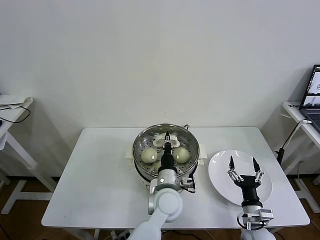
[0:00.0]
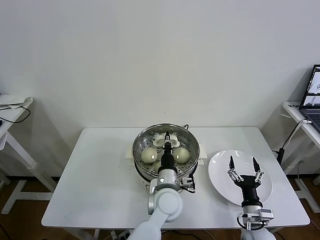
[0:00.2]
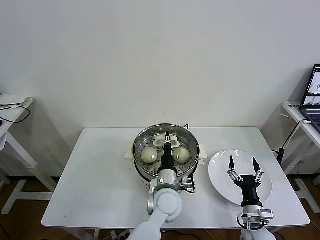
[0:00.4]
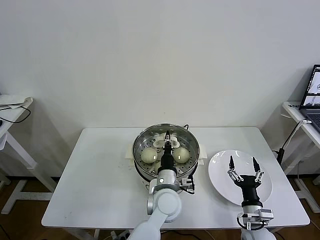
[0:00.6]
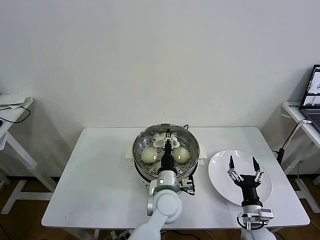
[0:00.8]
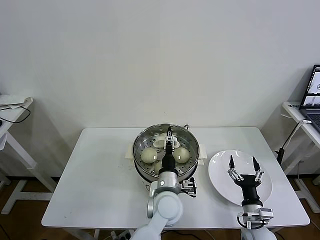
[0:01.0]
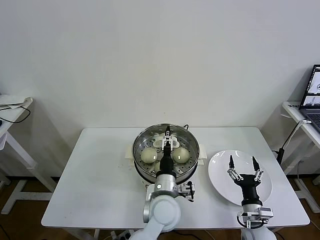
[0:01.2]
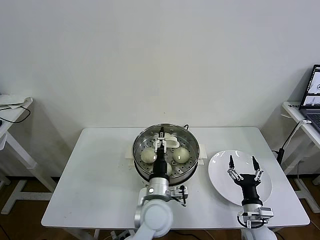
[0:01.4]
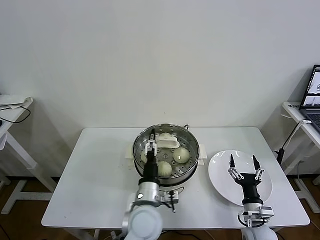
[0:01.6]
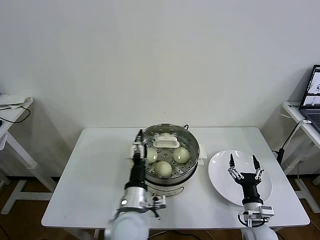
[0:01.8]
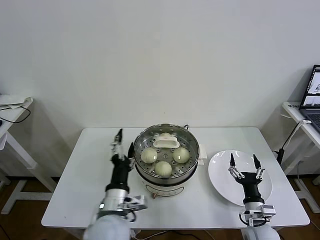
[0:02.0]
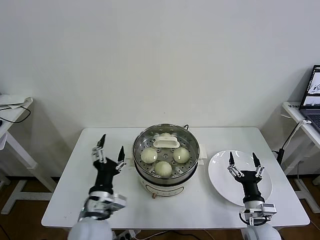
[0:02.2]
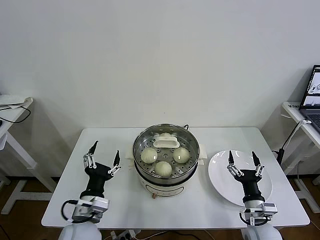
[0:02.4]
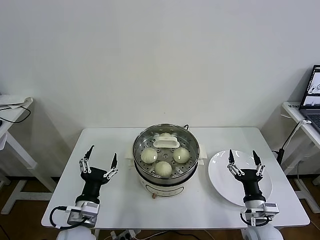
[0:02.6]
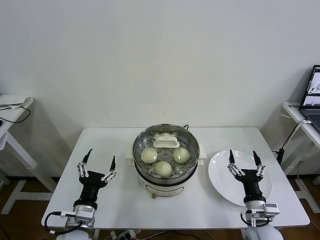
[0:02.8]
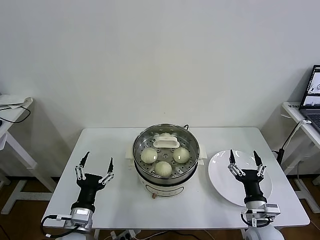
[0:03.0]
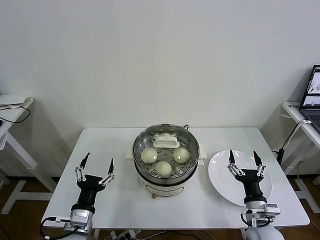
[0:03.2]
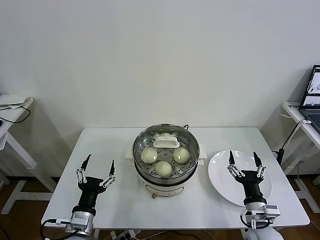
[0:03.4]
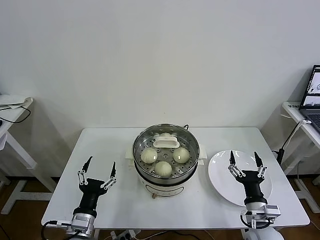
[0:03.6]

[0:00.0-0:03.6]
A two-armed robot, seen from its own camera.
Task of the whole recording: take steamed baozi put them in steamer then cover it.
0:00.0 to 0:01.8: The left gripper shifts approximately 10 cm to the left and backward, and opens up.
0:01.8 to 0:03.6: The right gripper travels upward by approximately 5 cm, while the left gripper heads to the left, covering roughly 15 cm.
